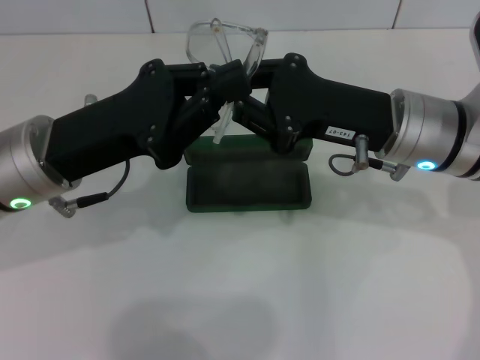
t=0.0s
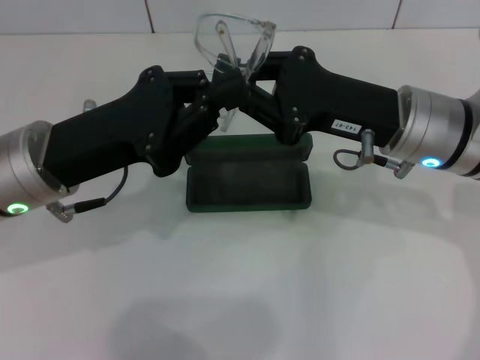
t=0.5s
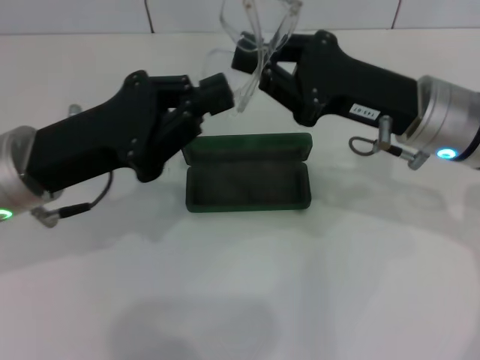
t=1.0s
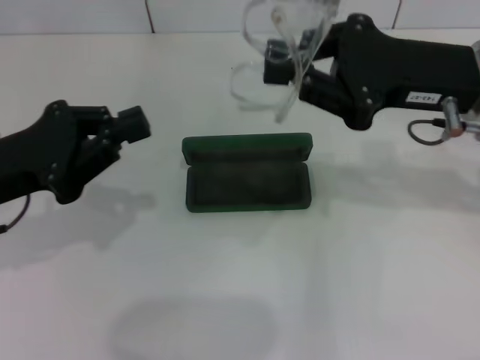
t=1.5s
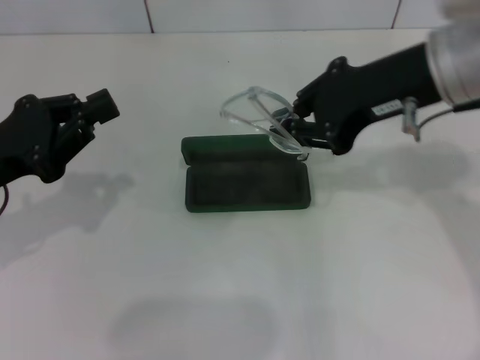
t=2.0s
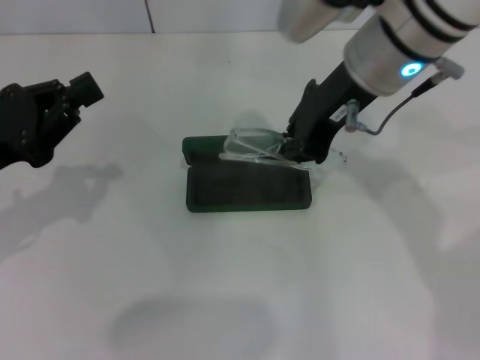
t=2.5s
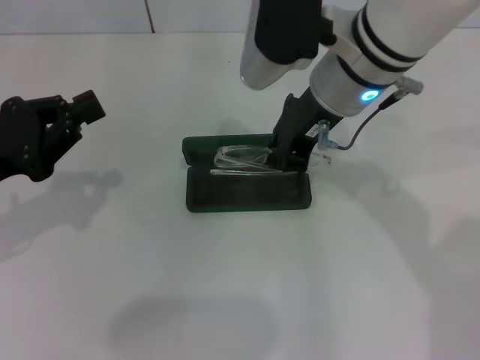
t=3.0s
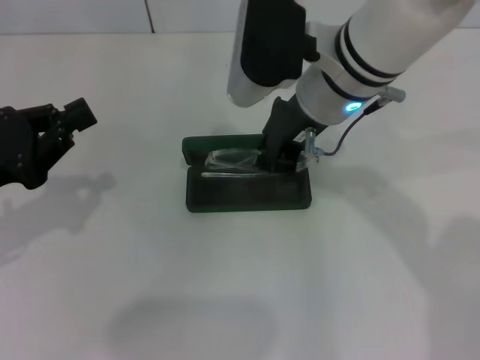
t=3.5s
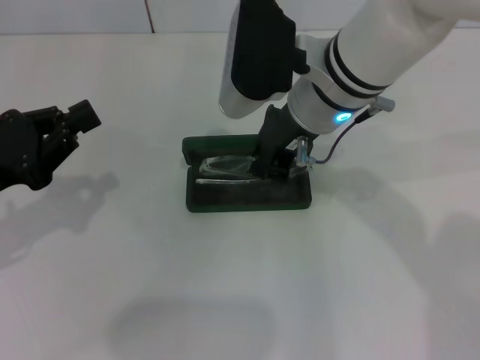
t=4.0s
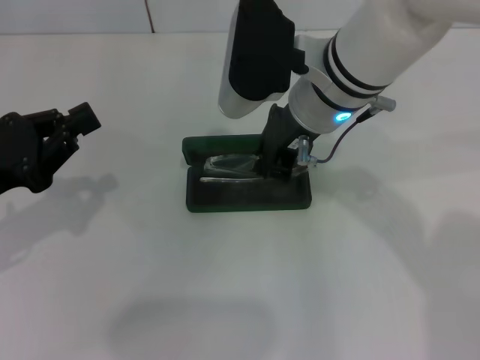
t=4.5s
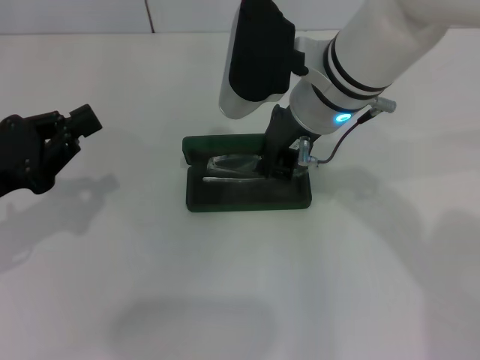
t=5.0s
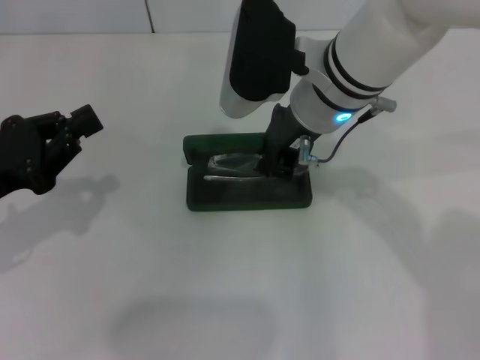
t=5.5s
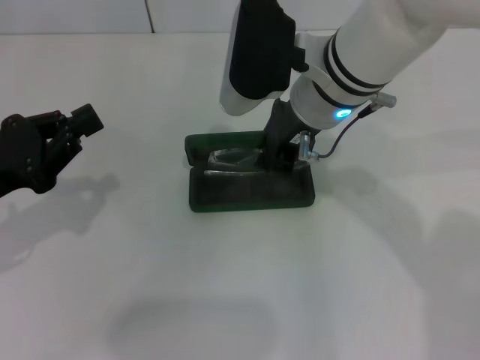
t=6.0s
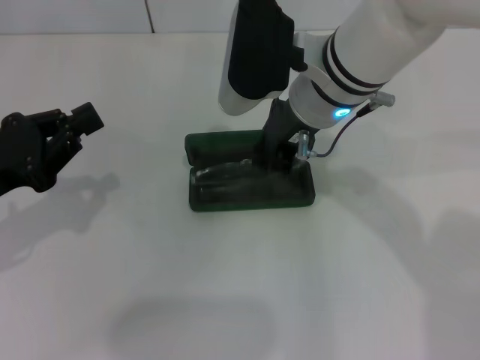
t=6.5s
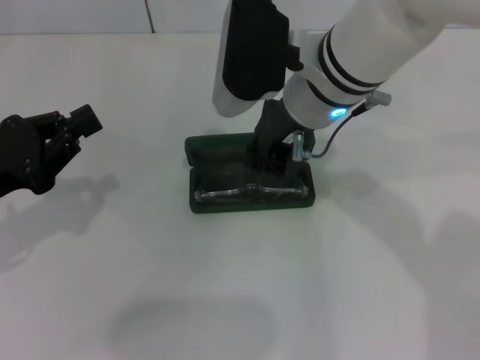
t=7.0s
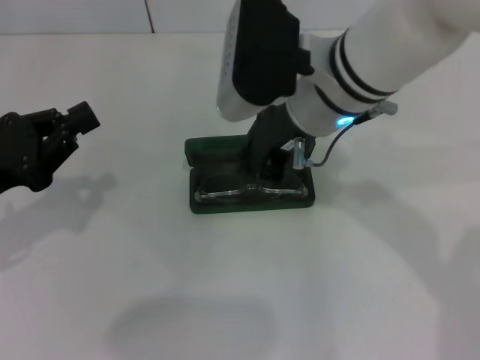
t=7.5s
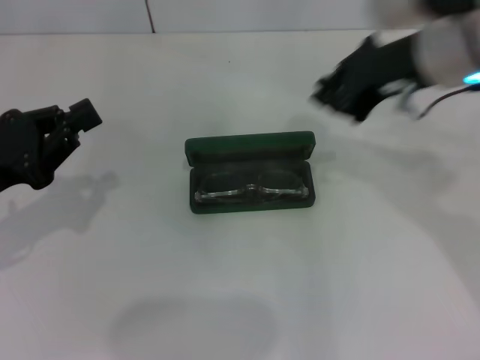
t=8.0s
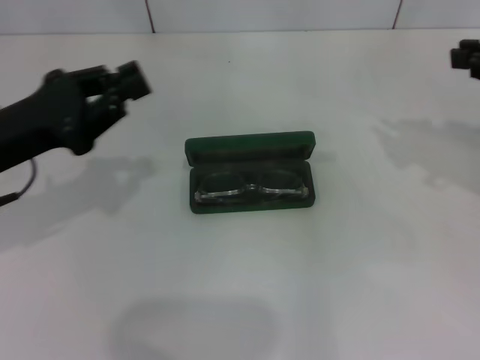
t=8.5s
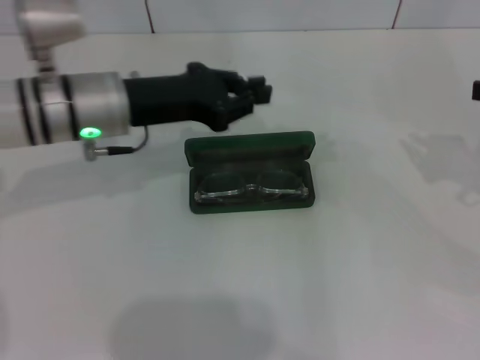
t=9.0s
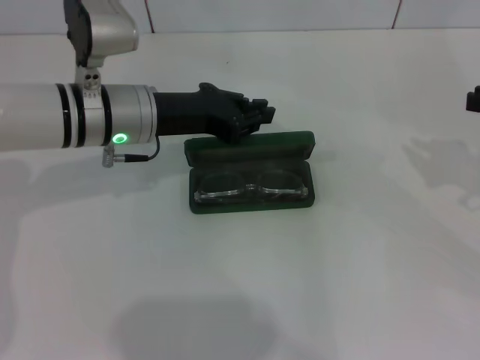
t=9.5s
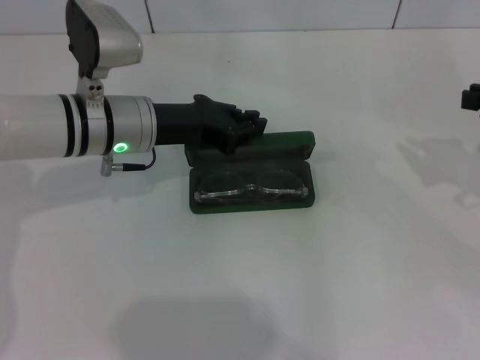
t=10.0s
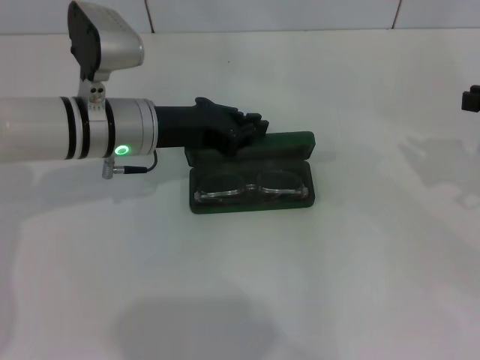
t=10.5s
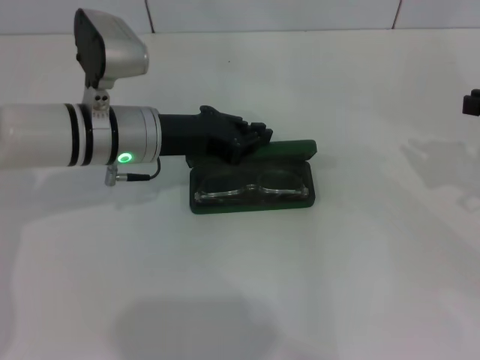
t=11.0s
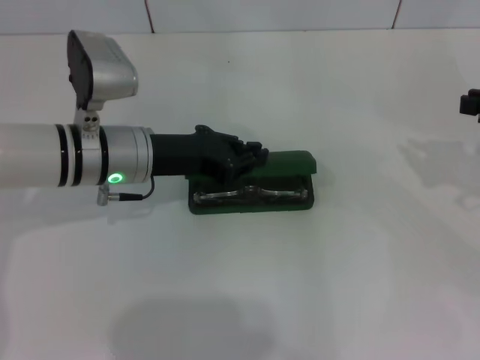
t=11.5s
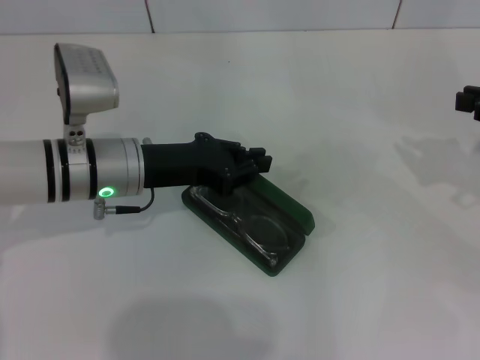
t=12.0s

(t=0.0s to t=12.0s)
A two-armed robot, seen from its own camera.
Step, t=1.0s - t=6.5s: Put the glasses into the case with your right hand.
t=0.0s - t=2.0s: The left gripper goes approximately 10 cm to the left. The right gripper goes roughly 10 cm upward.
t=2.0s - t=4.0s: The right gripper is displaced to the left and downward by roughly 10 cm.
t=4.0s - t=6.0s: Both grippers stay about where they are.
t=6.0s - t=8.0s: The right gripper is displaced to the right and upward by about 10 cm.
t=8.0s - t=10.0s: The right gripper heads to the right, covering roughly 20 cm; the left gripper moves to the right and forward, about 20 cm.
t=10.0s - t=12.0s: The grippers stay close to where they were, moving slightly.

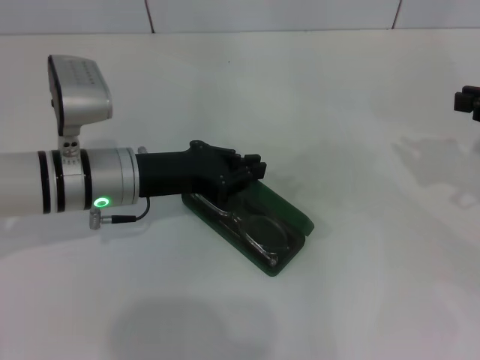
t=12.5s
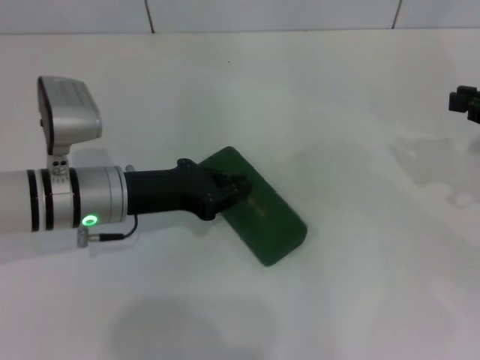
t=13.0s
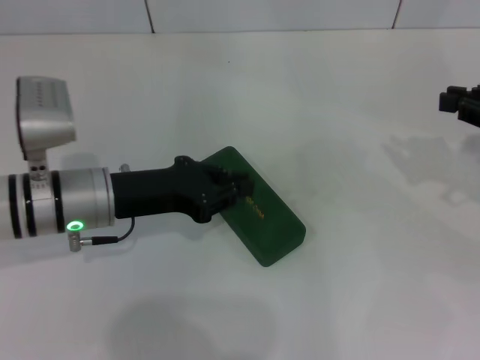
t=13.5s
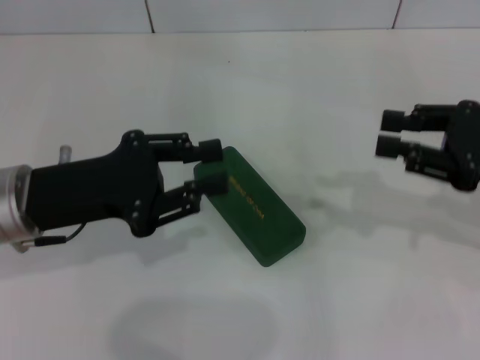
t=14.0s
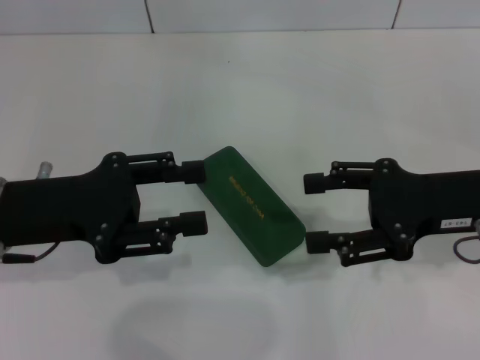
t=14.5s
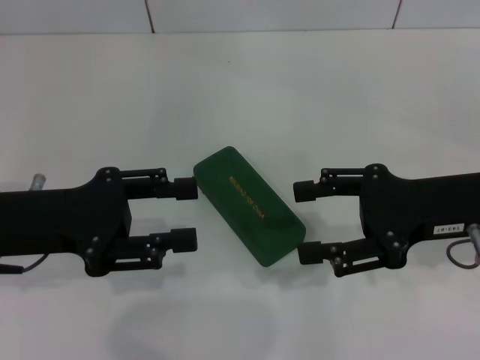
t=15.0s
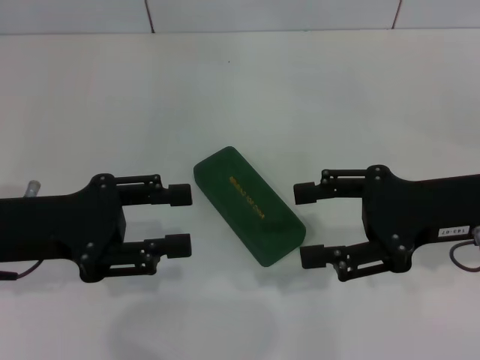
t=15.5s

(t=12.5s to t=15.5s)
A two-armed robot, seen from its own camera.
t=12.5s - t=14.0s: The left gripper shifts about 10 cm backward and to the left. Meanwhile the right gripper heads to the left, covering approximately 5 cm.
t=14.0s - t=15.5s: The left gripper opens its fingers. The right gripper shifts approximately 5 cm to the left, and opens.
